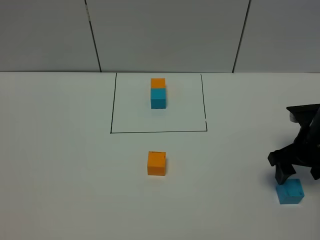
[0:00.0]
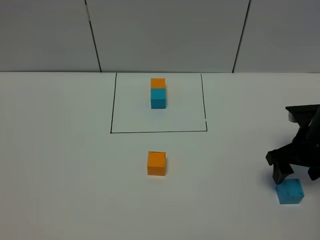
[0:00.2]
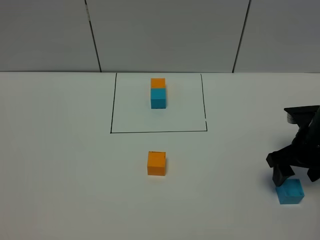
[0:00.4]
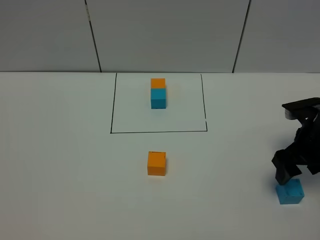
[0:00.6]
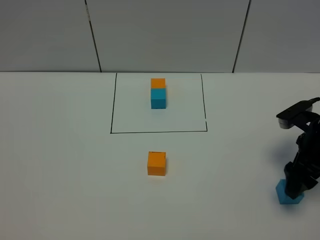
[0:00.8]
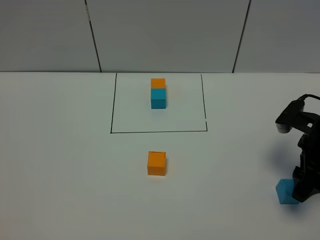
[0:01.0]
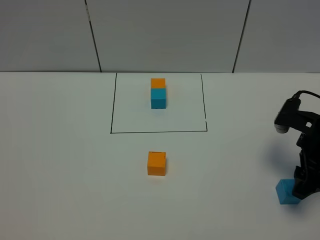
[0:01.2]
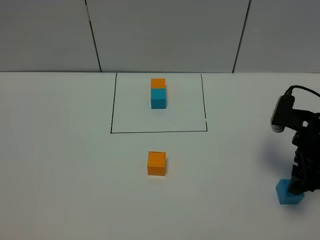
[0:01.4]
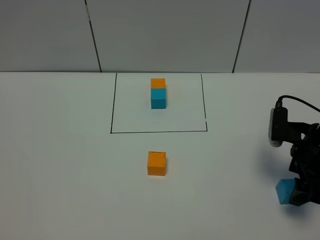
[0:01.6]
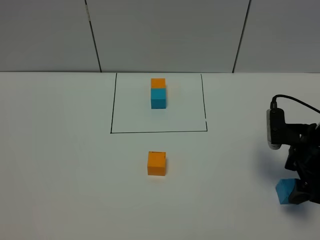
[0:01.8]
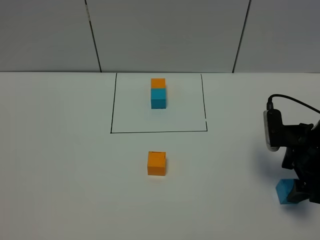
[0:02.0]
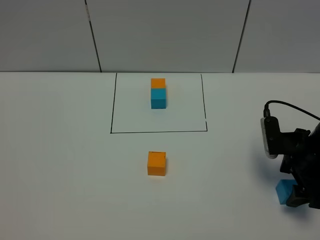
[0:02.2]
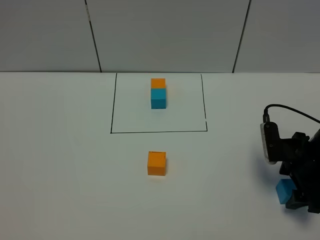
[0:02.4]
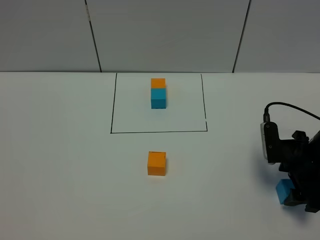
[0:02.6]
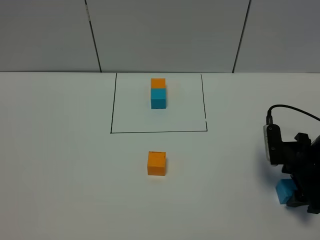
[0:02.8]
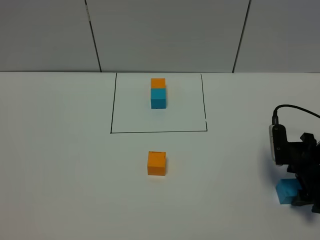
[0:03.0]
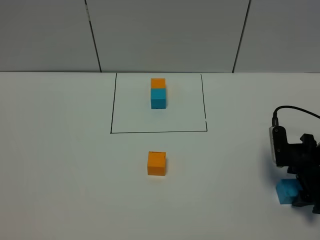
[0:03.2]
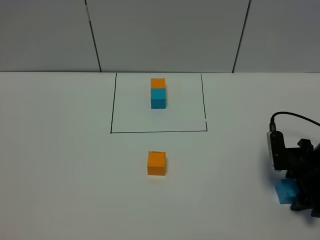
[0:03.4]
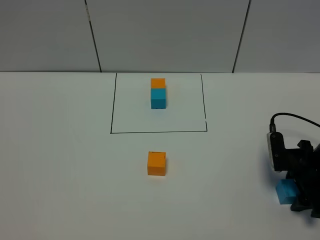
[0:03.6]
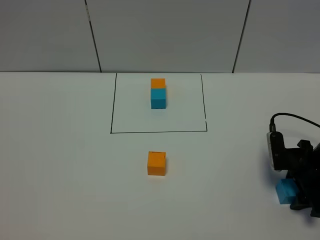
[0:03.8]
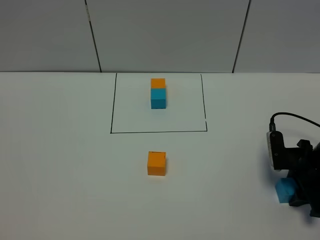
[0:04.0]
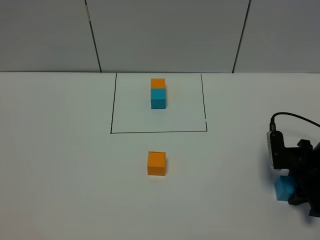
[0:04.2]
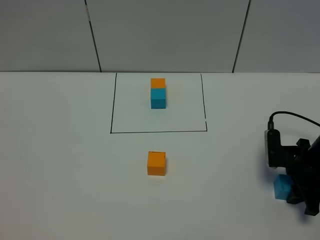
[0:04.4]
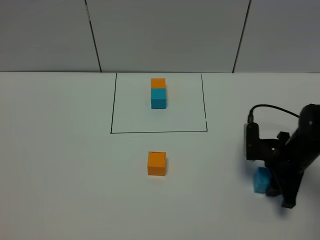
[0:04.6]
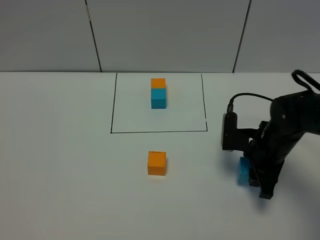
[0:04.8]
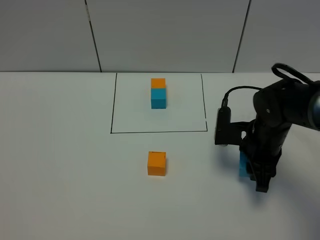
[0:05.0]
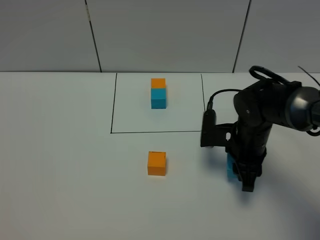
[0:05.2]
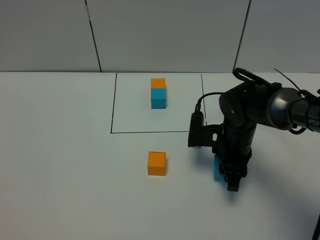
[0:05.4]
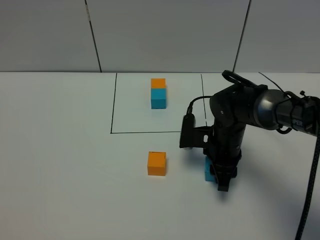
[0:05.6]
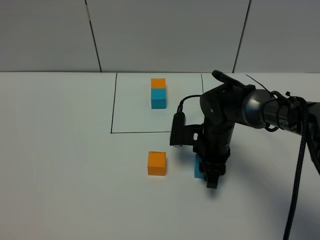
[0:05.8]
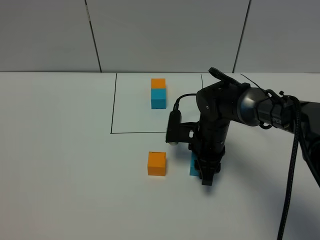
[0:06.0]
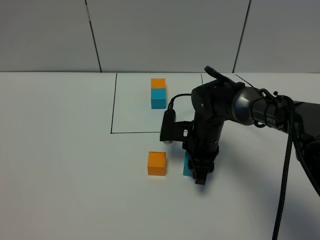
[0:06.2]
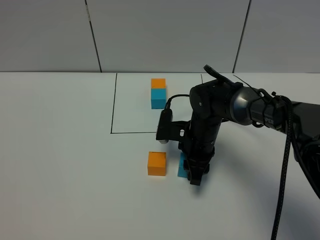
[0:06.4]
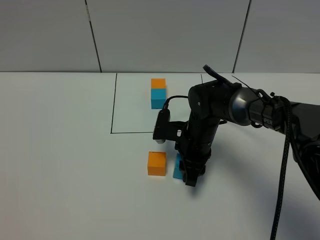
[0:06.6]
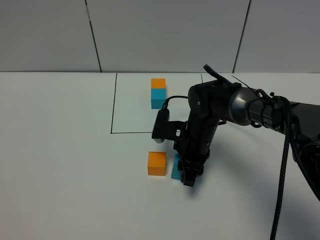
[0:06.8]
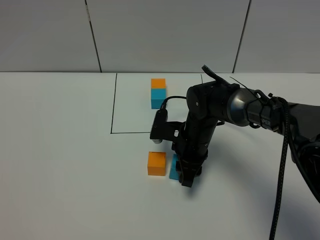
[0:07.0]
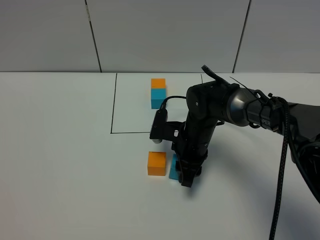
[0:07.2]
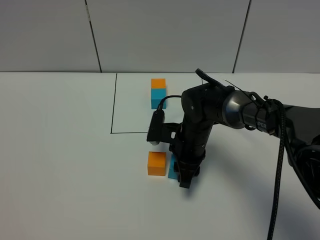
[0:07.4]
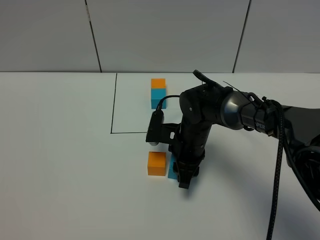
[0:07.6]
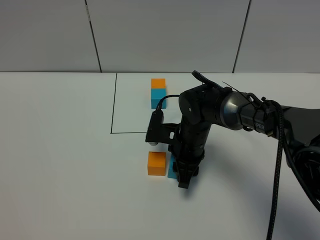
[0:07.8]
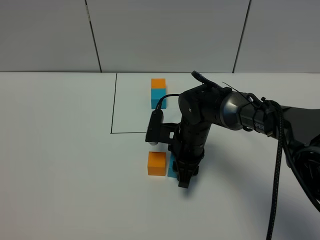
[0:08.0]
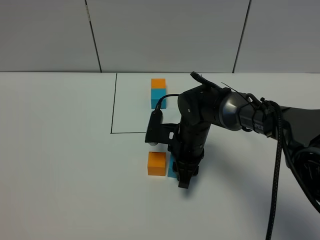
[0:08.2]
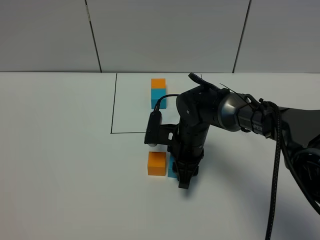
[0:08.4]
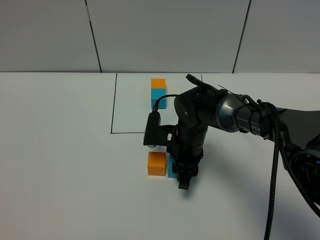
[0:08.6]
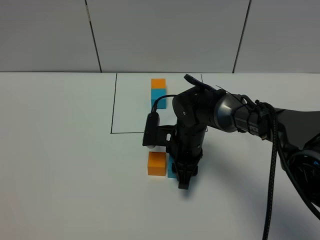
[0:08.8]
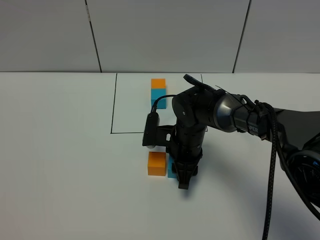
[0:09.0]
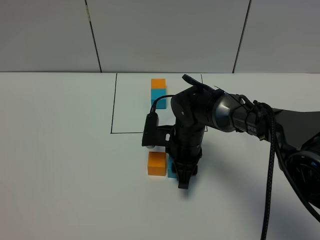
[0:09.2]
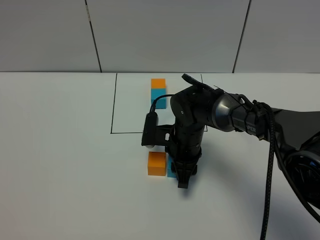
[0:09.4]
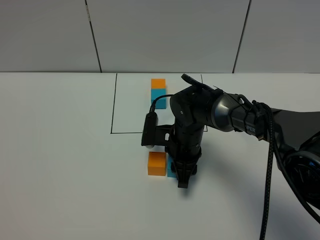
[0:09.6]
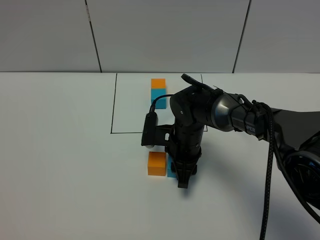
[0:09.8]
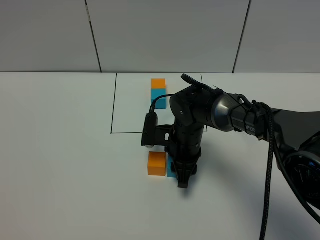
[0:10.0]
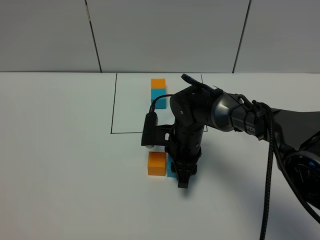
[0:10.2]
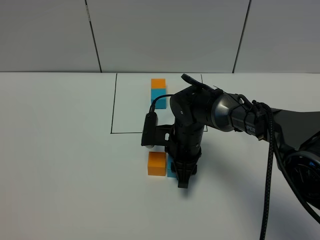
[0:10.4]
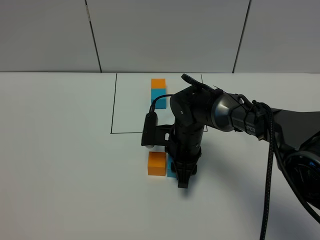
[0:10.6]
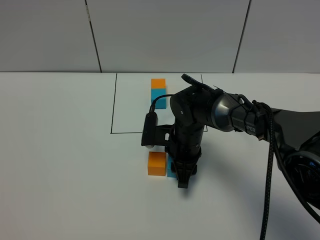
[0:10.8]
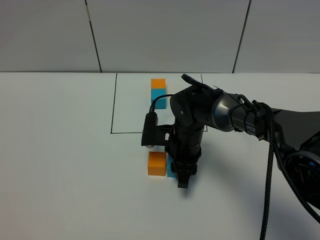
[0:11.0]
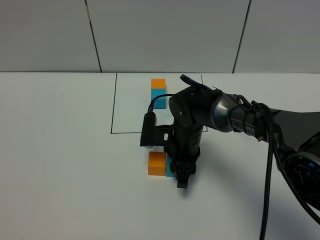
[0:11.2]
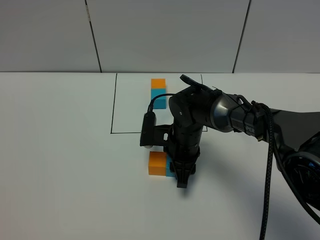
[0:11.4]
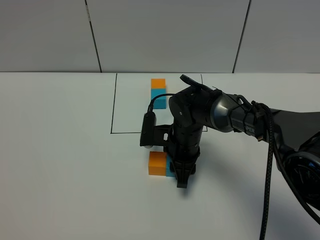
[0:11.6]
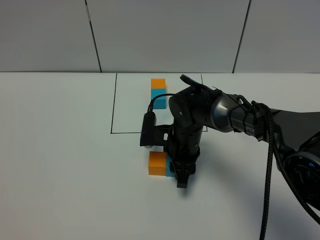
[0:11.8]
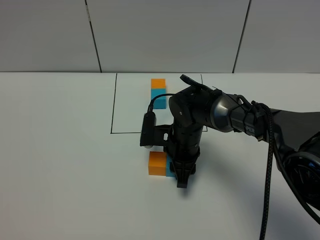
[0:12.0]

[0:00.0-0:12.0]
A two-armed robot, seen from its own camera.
Task of the whole recording: According to the building block template in front, assemble the scattered blocks together.
0:01.6 to 0:03.0: The right gripper heads downward, covering roughly 5 cm.
0:03.0 to 0:04.4: The right gripper closes its fingers.
0:04.4 to 0:06.0: The right gripper travels to the left by some 20 cm.
0:06.0 to 0:07.6: The grippers make only small movements.
0:07.6 to 0:09.0: Neither gripper changes place.
0:09.0 to 0:12.0: The two grippers keep their place.

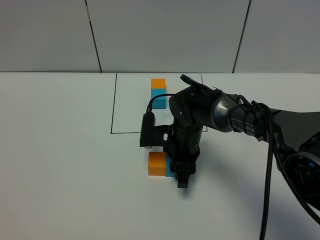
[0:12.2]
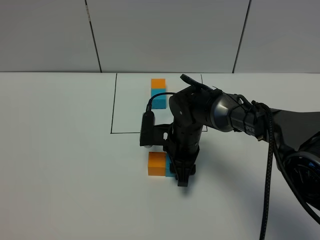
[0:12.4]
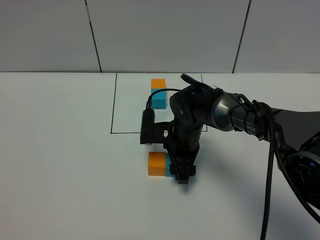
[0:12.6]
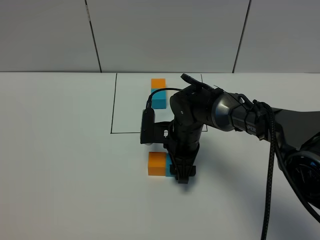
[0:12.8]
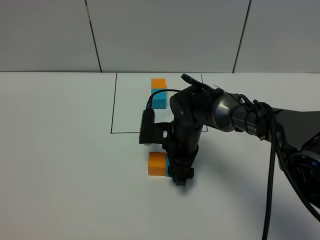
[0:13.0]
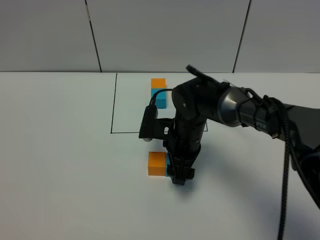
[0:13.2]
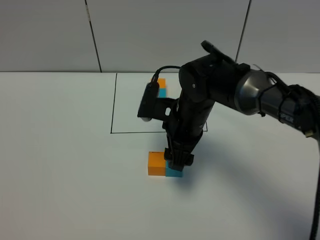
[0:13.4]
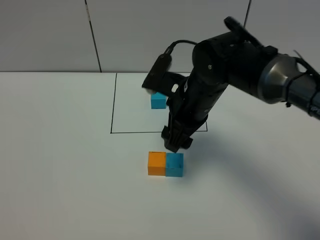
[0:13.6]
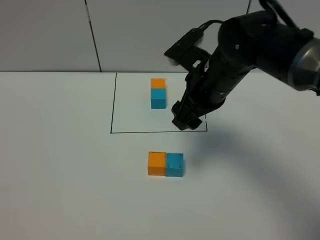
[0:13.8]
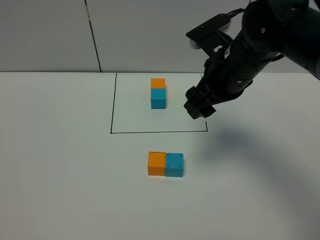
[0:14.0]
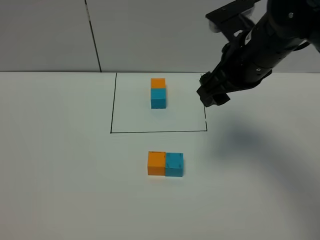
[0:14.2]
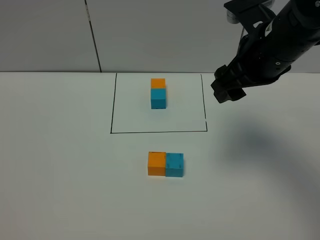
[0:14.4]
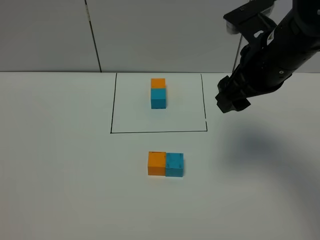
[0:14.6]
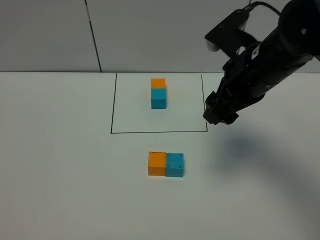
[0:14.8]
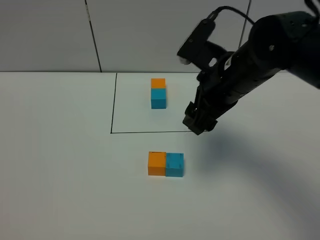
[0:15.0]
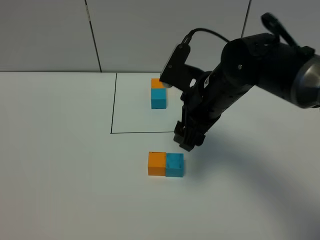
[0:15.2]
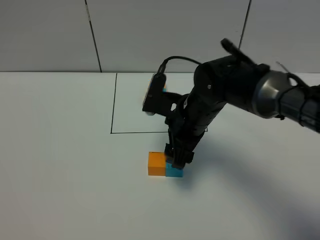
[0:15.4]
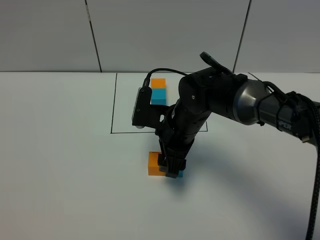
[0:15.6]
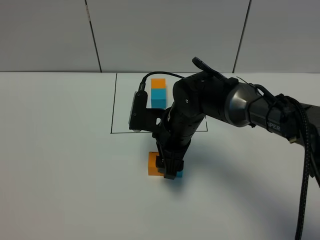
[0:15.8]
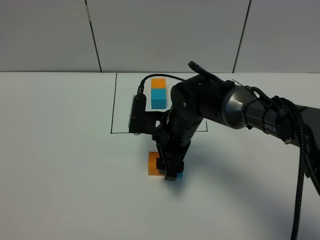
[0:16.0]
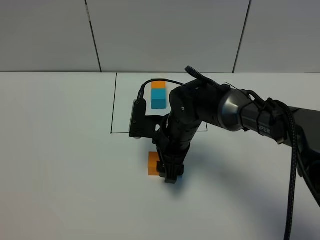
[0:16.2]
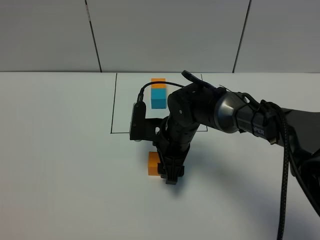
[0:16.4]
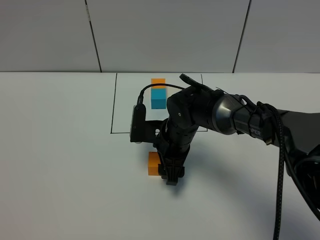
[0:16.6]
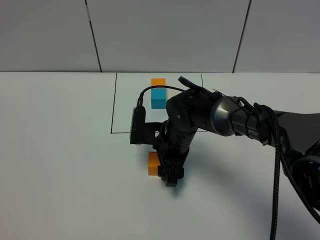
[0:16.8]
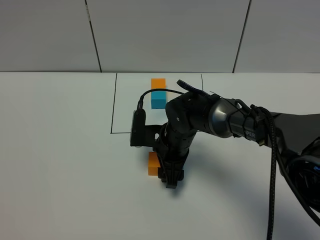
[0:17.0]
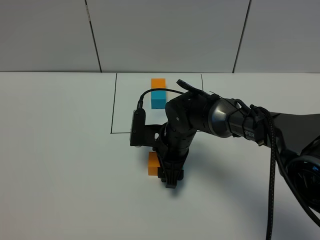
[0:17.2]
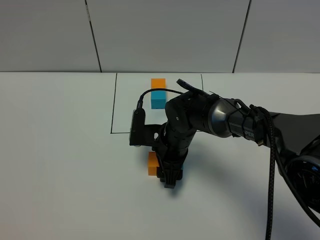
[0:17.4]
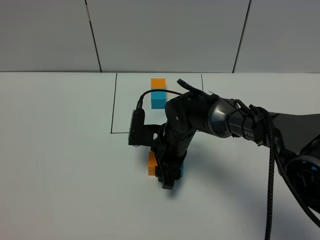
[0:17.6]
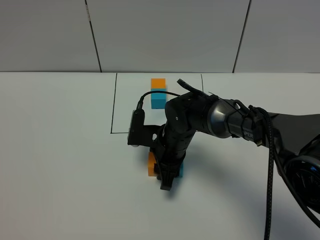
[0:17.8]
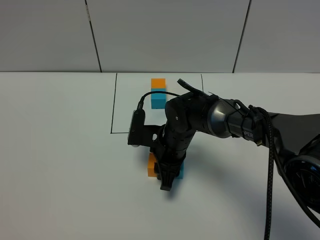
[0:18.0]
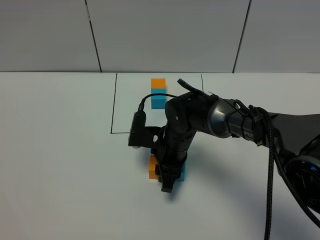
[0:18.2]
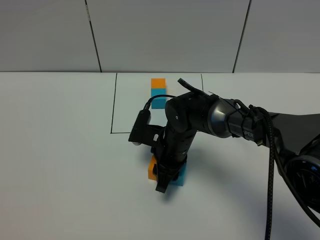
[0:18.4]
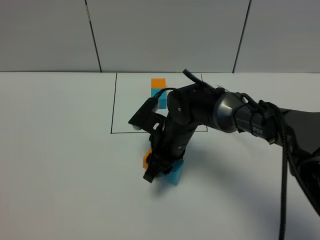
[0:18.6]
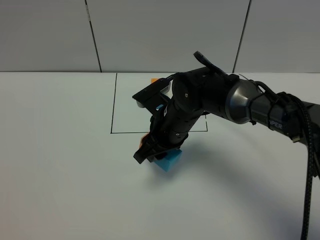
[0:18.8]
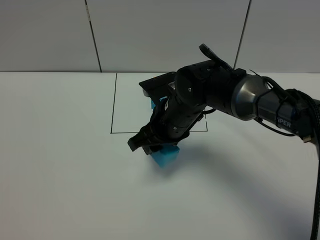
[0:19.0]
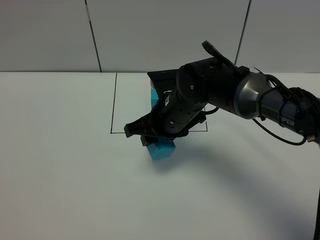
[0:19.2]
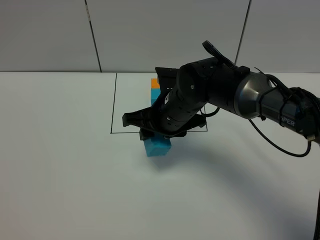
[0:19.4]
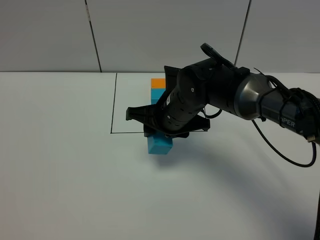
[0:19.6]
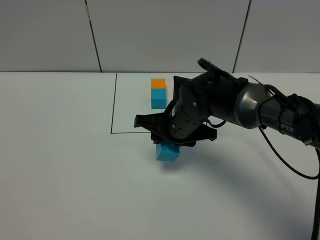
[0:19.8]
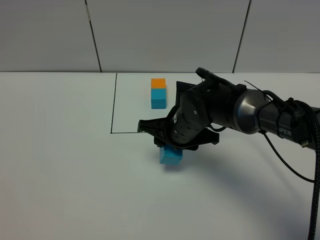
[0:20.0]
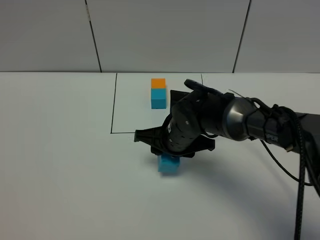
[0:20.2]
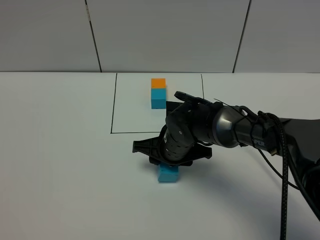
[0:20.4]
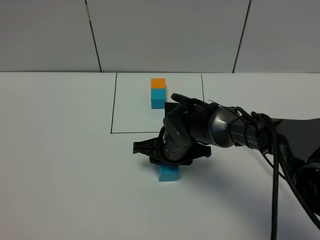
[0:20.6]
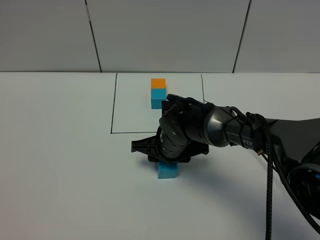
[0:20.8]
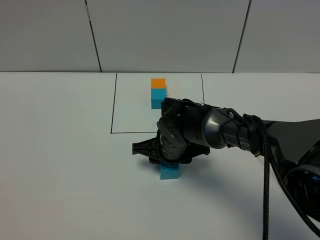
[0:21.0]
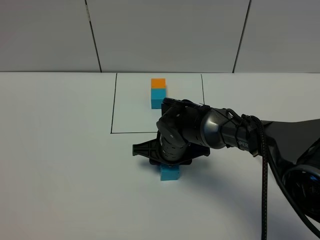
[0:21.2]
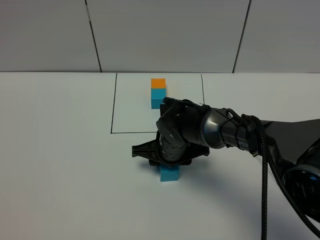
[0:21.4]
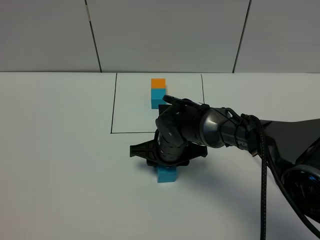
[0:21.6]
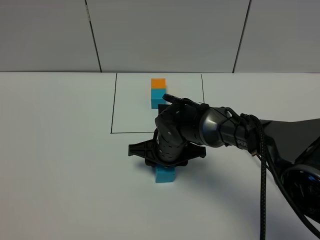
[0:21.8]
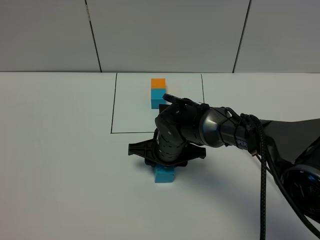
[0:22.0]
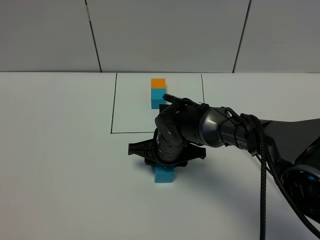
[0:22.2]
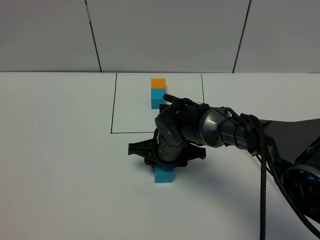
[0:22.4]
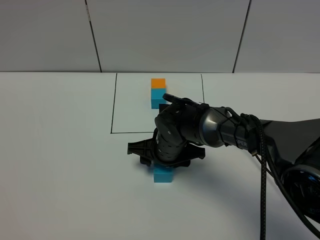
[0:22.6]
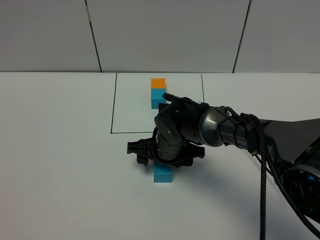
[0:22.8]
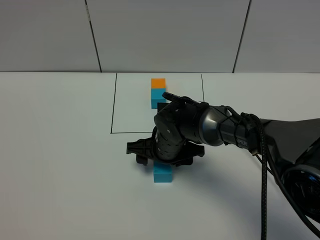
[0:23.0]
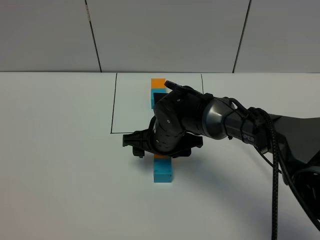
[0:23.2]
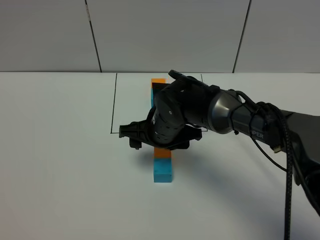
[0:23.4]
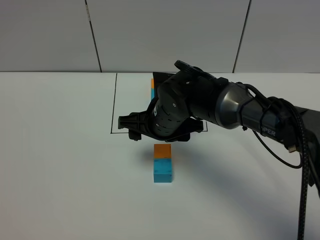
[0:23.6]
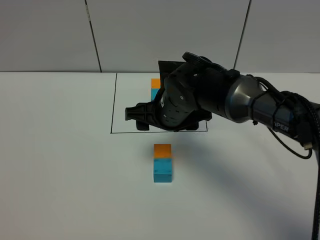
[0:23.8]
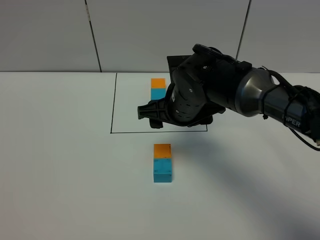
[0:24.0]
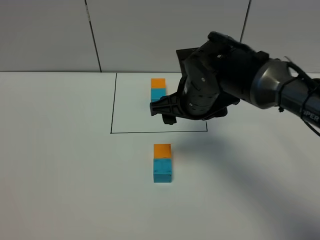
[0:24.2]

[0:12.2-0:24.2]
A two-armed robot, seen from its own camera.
Task of the whole recording: According to the building block template in front, assemble the scattered blocks together.
Step, 0:14.0 to 0:23.4: Adjust the pose of the building blocks.
0:12.2 to 0:13.8: The right gripper is displaced upward by roughly 20 cm, and opens.
0:15.2 to 0:16.6: The right gripper is displaced downward and to the left by roughly 10 cm.
0:16.6 to 0:18.2: The right gripper closes up.
0:18.2 to 0:19.8: The right gripper heads upward, covering roughly 5 cm.
0:19.8 to 0:21.2: The right gripper goes some 5 cm downward.
0:21.2 to 0:22.6: Both grippers stay put.
0:22.6 to 0:24.2: The right gripper travels upward by some 15 cm.
